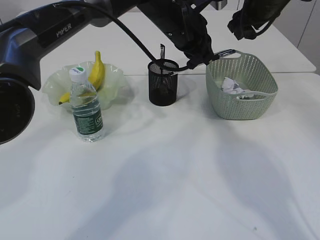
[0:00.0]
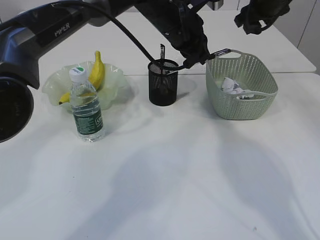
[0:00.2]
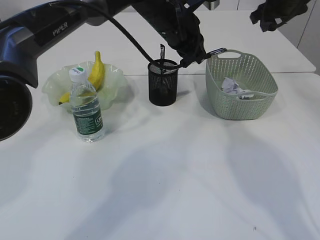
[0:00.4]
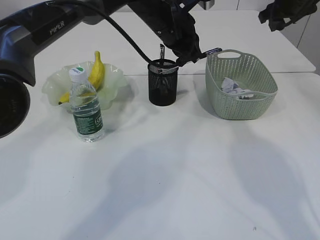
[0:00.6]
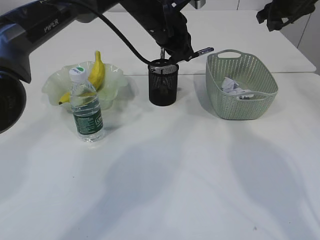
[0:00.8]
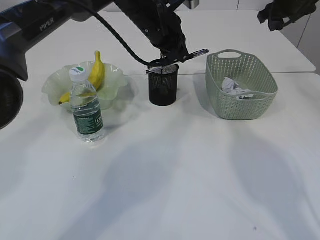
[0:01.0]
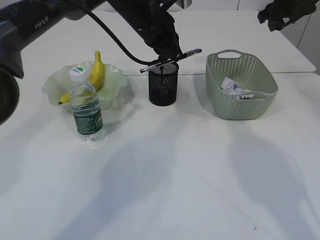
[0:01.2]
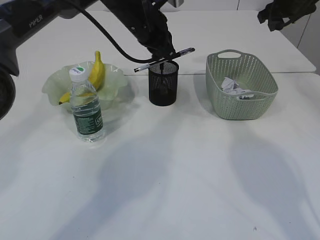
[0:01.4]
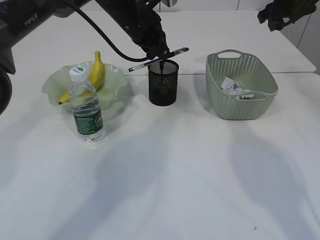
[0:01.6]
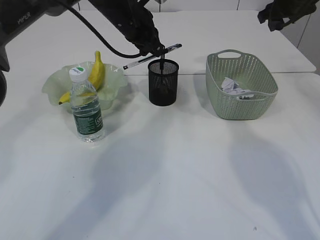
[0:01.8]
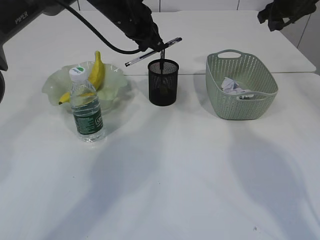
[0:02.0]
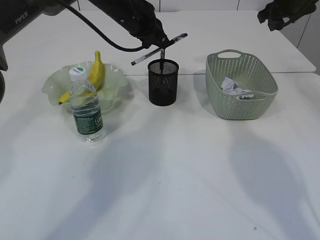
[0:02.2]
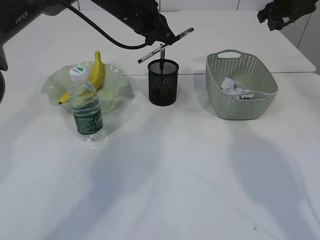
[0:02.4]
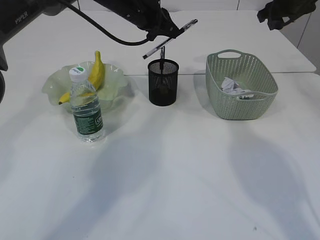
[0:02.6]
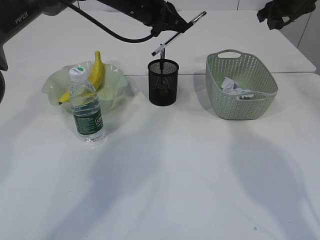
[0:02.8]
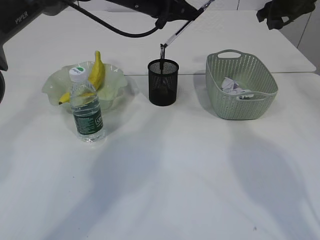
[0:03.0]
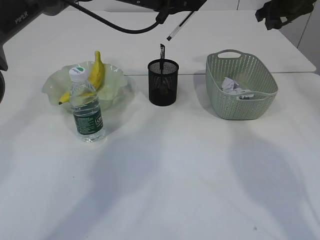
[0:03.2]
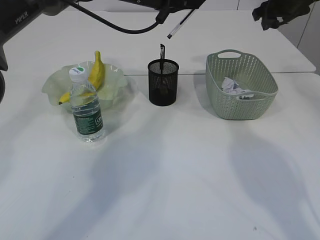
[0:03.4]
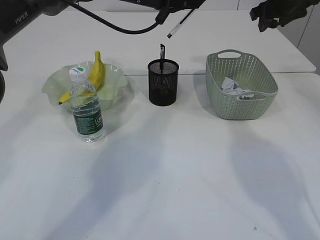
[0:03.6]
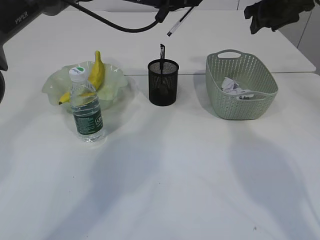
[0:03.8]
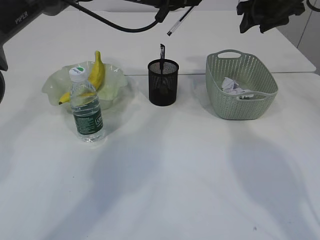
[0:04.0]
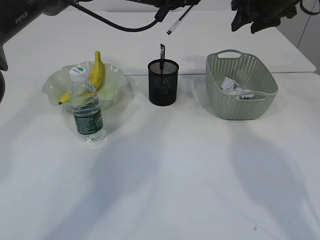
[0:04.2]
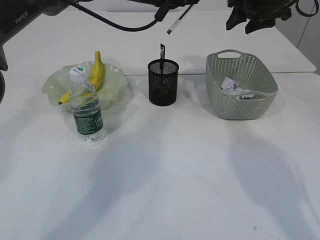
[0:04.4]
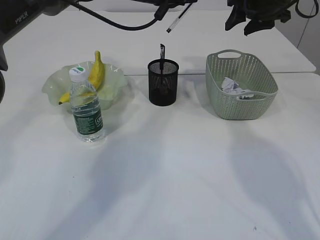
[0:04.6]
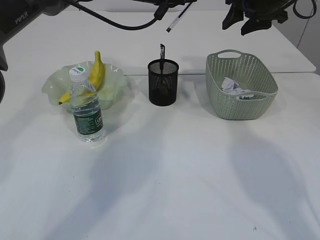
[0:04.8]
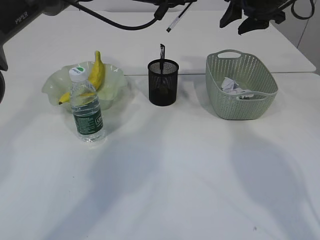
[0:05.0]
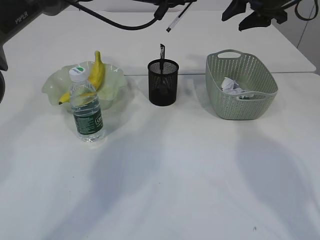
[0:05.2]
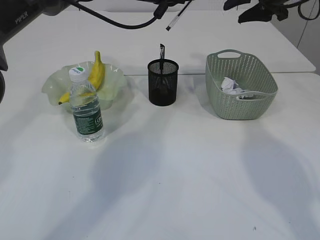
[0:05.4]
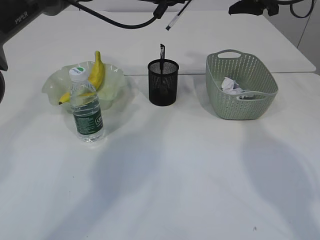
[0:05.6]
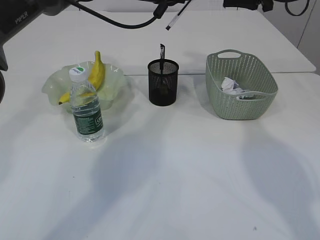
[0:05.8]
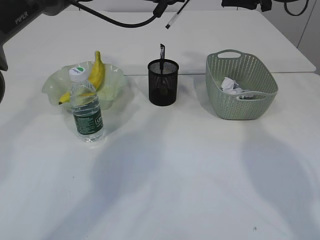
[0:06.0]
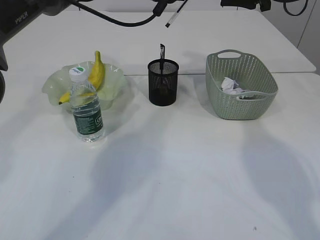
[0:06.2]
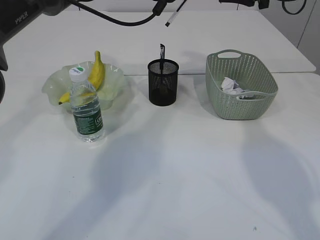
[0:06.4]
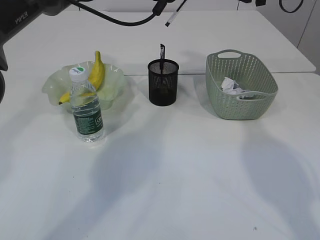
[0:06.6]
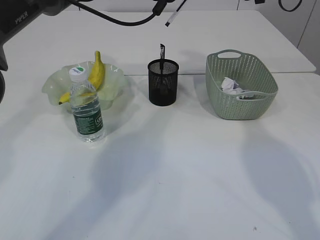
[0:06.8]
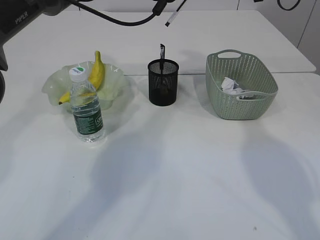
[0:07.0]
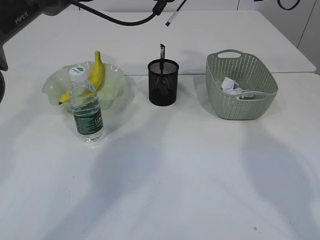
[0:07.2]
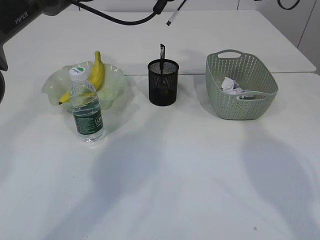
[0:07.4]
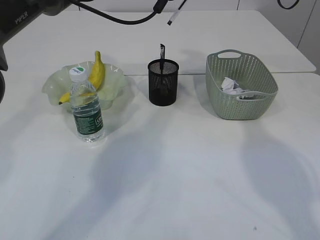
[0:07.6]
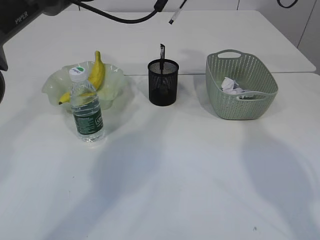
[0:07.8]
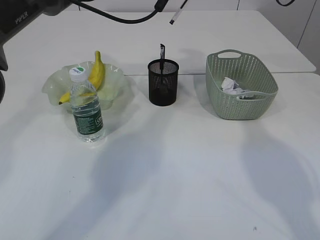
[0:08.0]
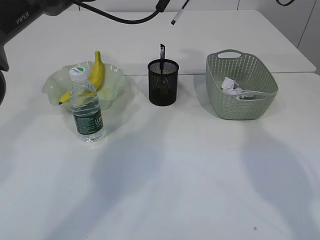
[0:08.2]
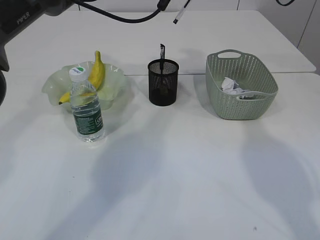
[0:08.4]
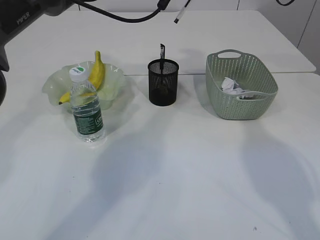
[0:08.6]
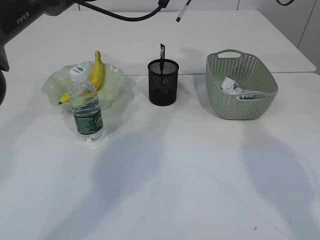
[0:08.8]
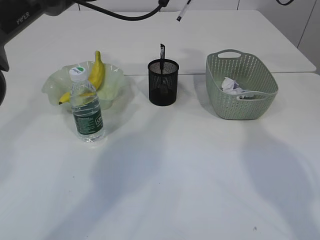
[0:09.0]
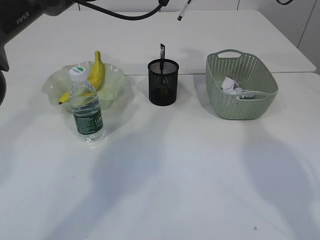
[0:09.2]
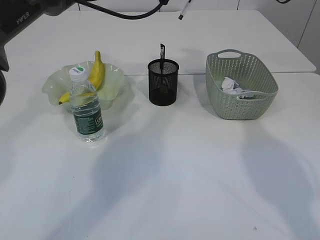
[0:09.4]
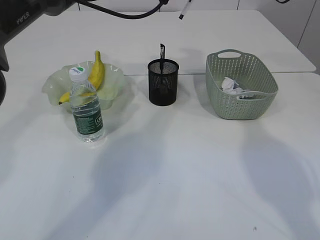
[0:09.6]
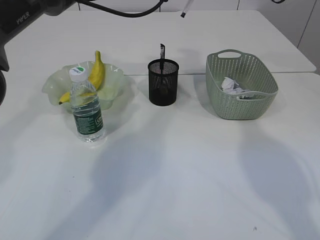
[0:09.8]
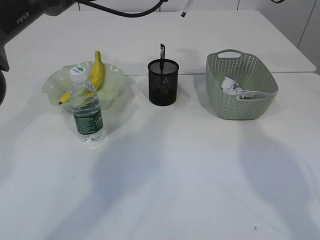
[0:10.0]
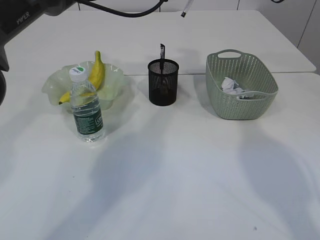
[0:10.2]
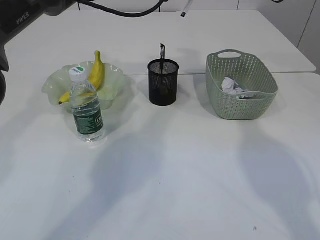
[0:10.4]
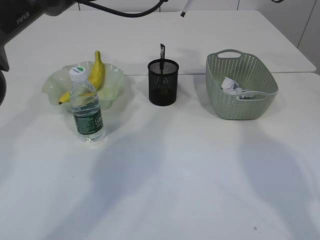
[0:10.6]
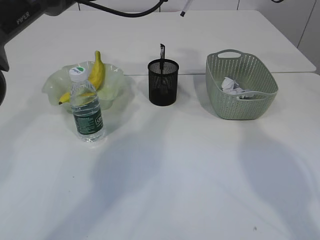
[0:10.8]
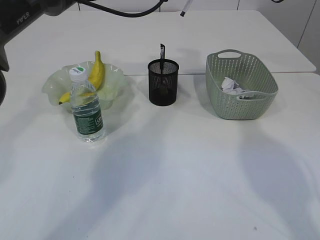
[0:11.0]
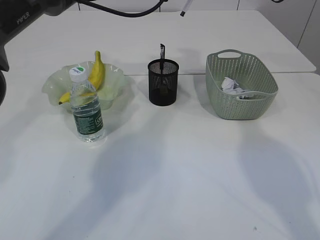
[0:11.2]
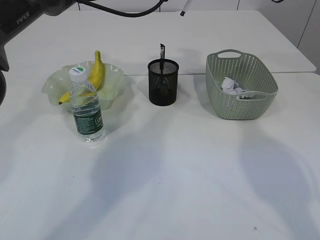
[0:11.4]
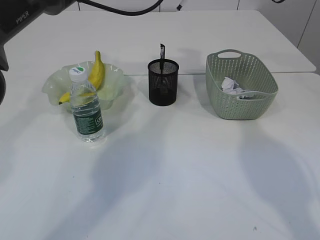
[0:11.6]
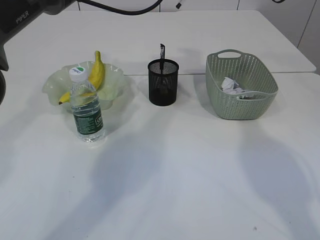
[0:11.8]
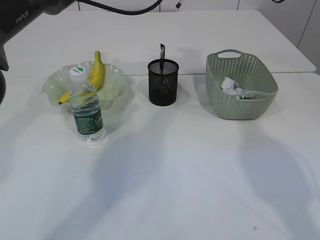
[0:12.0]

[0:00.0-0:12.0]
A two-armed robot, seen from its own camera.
0:00.0 to 0:01.6: The left gripper heads to the left, covering roughly 10 cm. The right gripper is displaced to the right by some 5 cm.
0:06.0 to 0:09.0: The grippers make only small movements.
0:09.0 to 0:10.4: Both grippers stay about where they are.
0:10.4 to 0:12.0: Both grippers stay put.

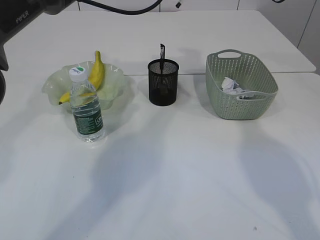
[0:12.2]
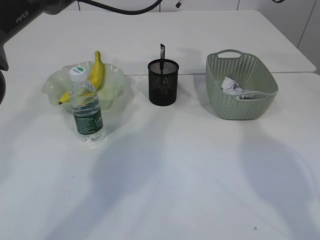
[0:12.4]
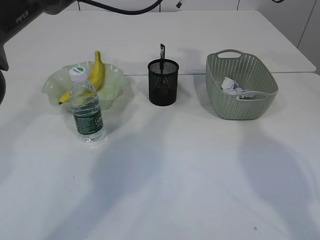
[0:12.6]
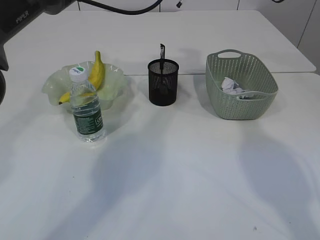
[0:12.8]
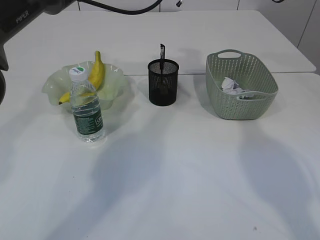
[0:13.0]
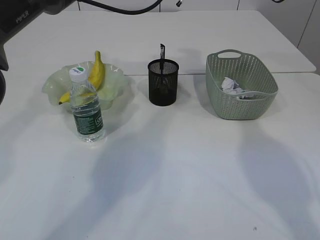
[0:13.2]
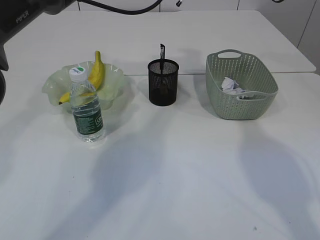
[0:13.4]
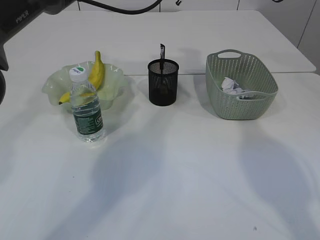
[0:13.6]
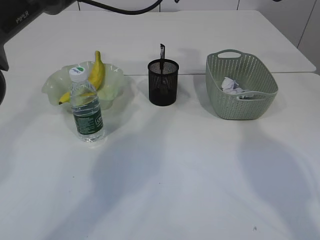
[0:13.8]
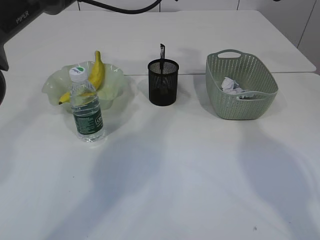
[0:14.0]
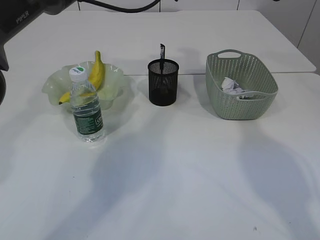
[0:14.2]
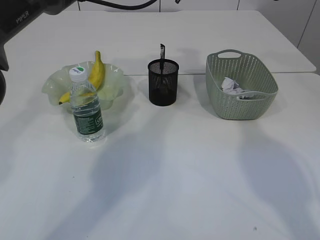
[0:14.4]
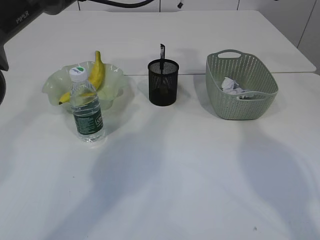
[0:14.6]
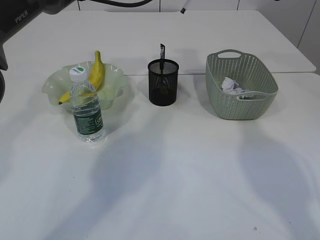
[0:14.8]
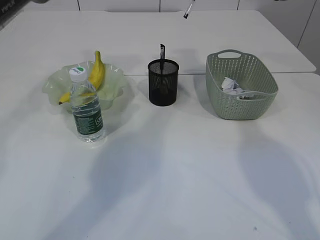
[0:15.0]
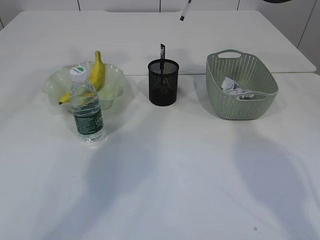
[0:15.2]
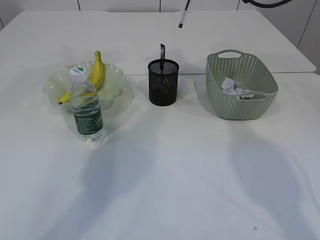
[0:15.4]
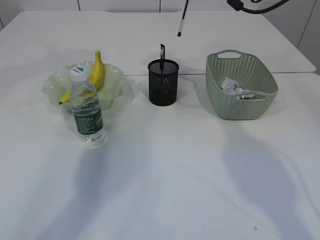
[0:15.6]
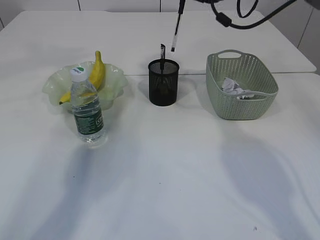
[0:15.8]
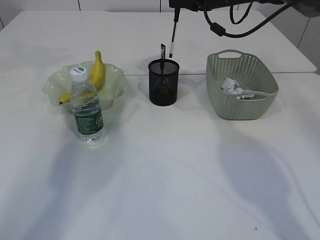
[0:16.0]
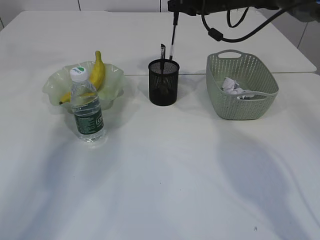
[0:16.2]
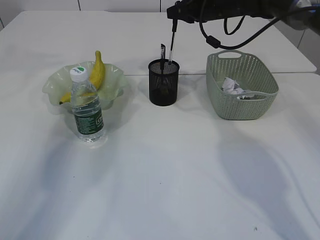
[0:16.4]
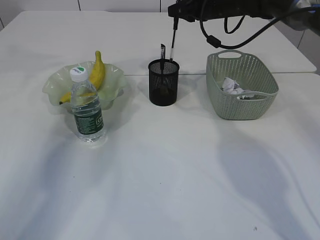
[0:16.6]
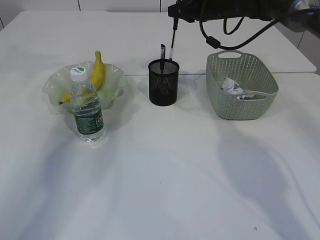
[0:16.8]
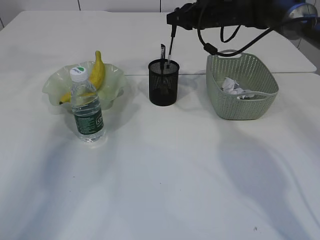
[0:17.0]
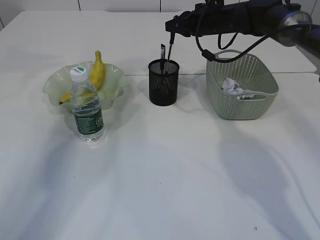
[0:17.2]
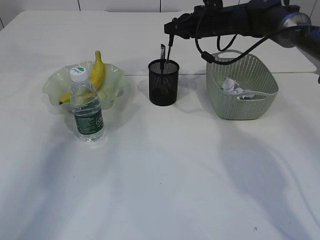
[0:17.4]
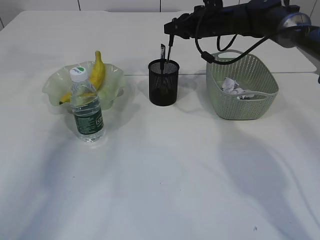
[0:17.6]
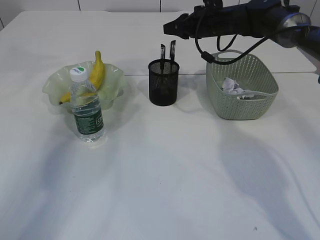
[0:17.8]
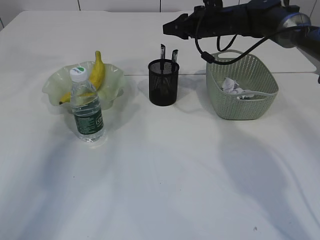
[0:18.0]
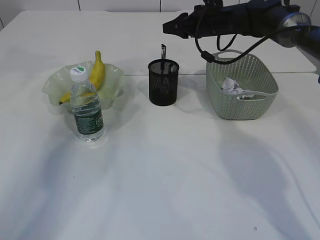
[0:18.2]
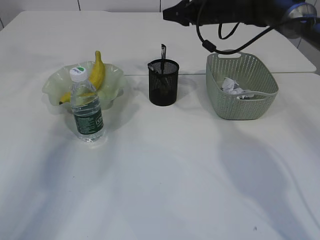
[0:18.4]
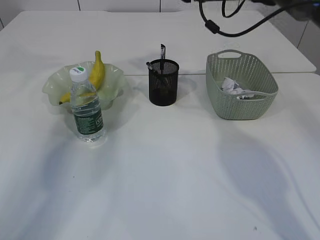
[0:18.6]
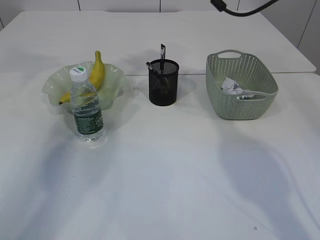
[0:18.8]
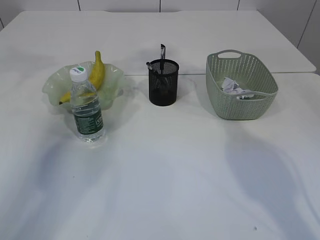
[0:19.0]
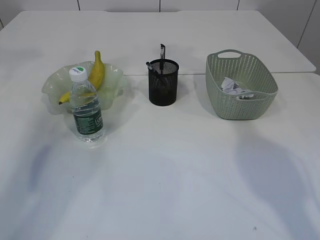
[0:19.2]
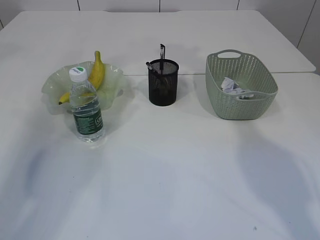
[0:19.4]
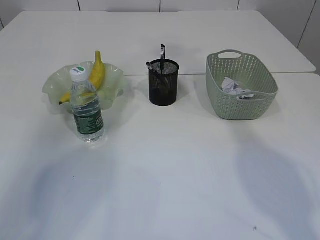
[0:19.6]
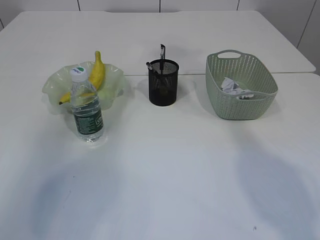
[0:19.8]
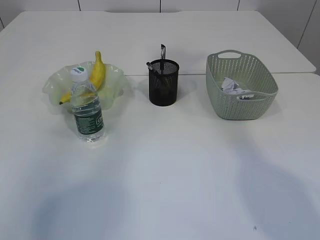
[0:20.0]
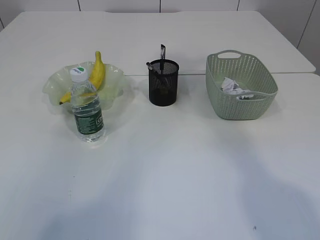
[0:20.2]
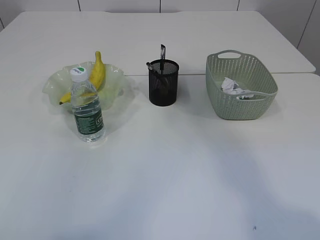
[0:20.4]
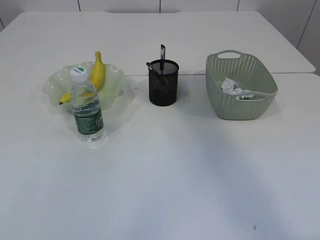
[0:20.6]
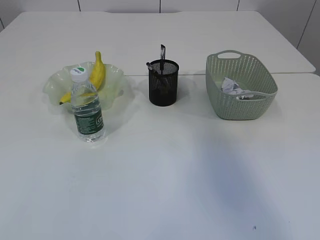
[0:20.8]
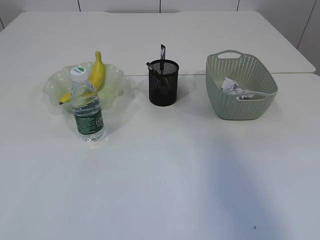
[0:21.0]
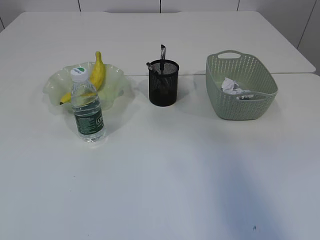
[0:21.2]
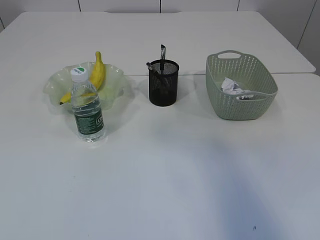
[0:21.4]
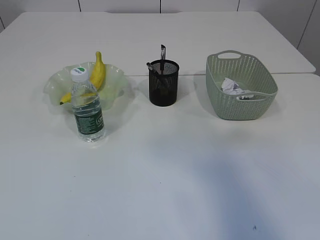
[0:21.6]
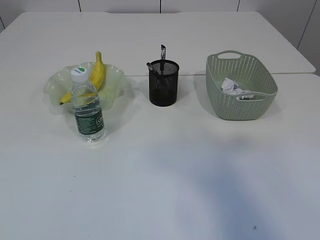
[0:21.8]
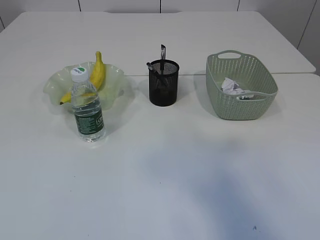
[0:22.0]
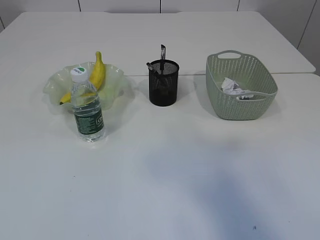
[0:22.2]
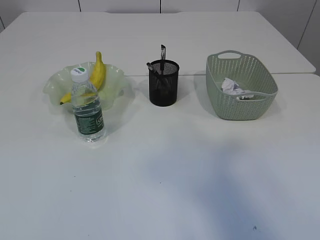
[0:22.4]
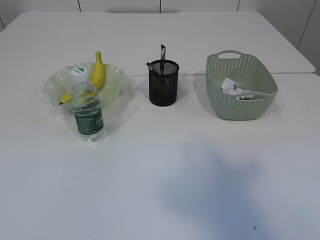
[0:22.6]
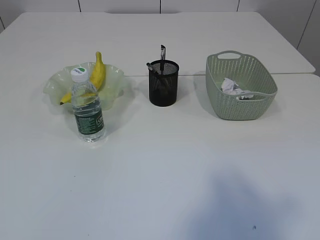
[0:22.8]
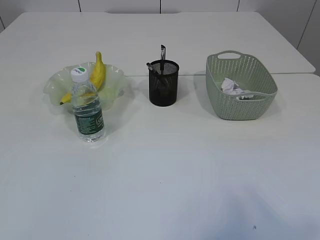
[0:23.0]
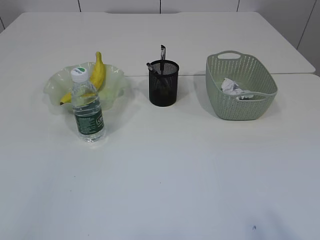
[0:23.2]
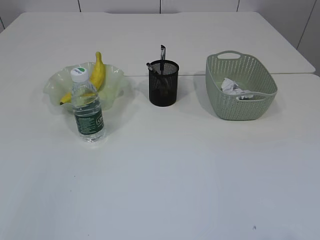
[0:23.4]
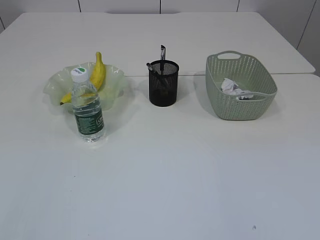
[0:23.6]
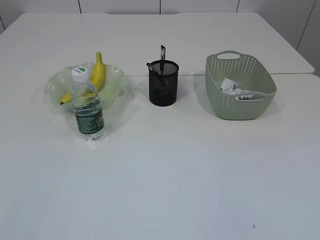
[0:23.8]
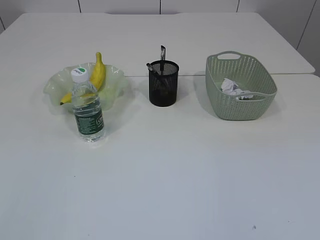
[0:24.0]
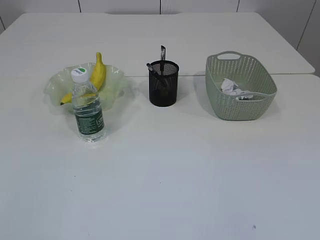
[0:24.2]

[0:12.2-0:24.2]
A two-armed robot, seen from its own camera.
Step, 0:12.2 to 0:15.2: transfer the pen to the right arm.
Step, 0:15.4 to 0:17.6: Place the pen into the pen holder.
0:12.2 to 0:13.8: Neither gripper changes place.
0:13.8 to 0:15.2: The left gripper shifts approximately 5 cm upward.
0:15.2 to 0:16.6: The left gripper shifts some 20 cm to the left. Meanwhile the right gripper shifts roughly 10 cm downward and to the left.
0:16.6 to 0:18.2: The grippers move only a little.
0:18.2 to 0:19.8: The left gripper is displaced upward, backward and to the left by roughly 25 cm, while the right gripper moves upward and backward, about 35 cm.
0:19.8 to 0:21.2: Both grippers travel together backward, some 30 cm.
0:21.2 to 0:22.6: Both grippers travel together backward, about 10 cm.
0:22.6 to 0:24.2: The grippers both shift downward by some 30 cm.
